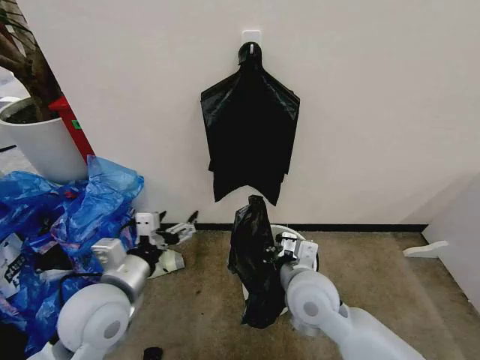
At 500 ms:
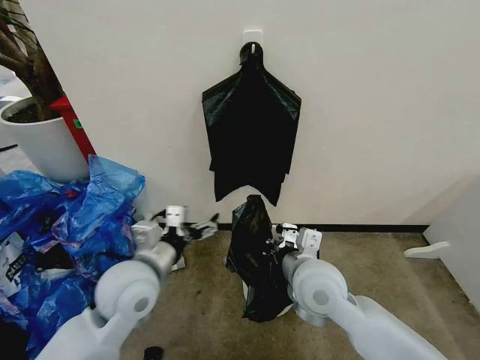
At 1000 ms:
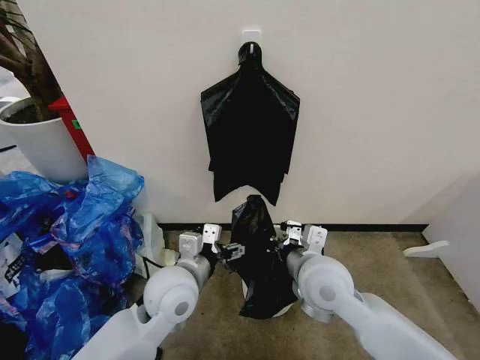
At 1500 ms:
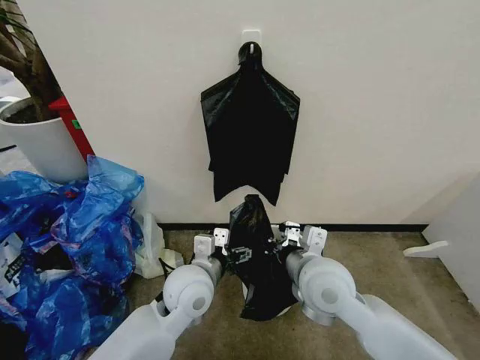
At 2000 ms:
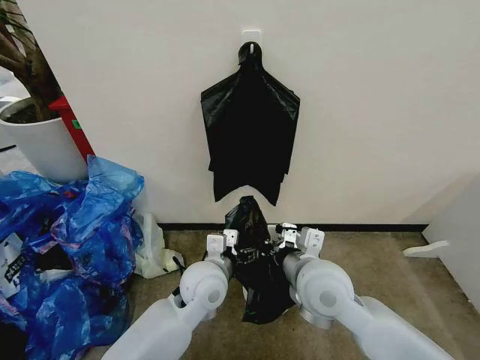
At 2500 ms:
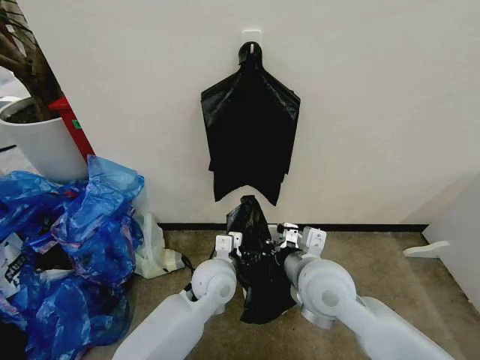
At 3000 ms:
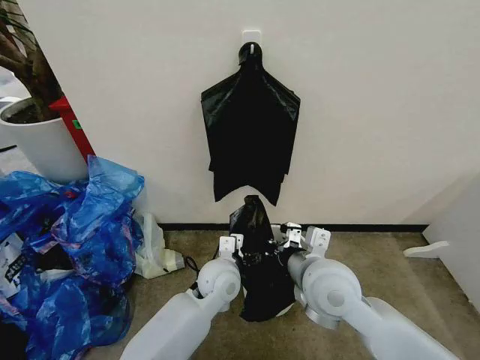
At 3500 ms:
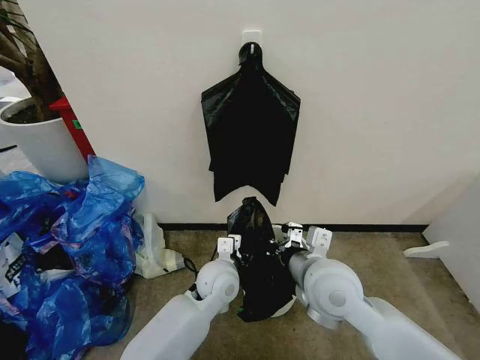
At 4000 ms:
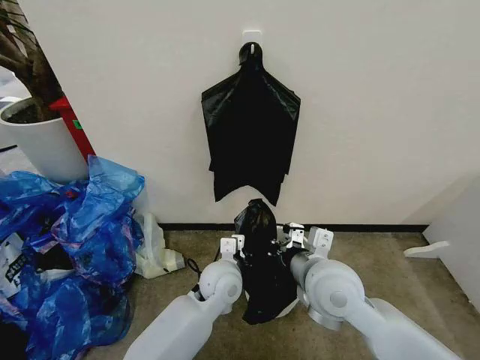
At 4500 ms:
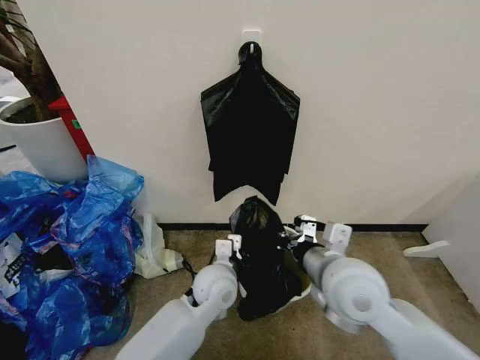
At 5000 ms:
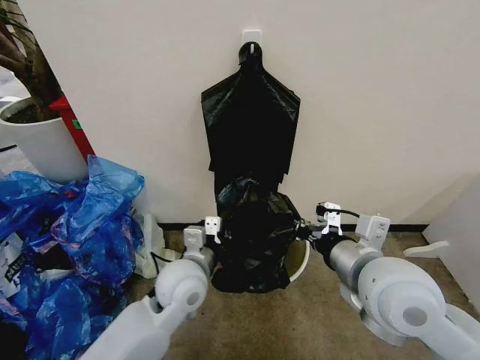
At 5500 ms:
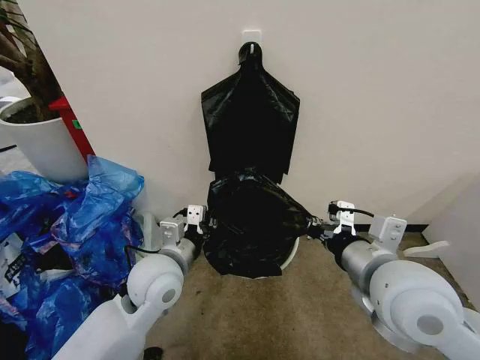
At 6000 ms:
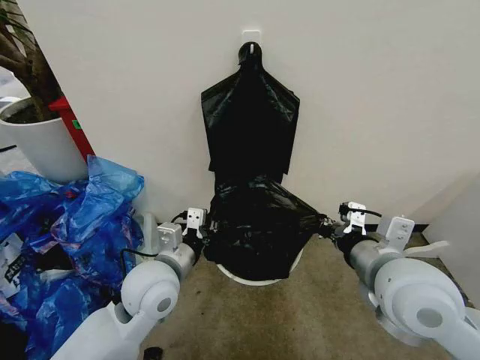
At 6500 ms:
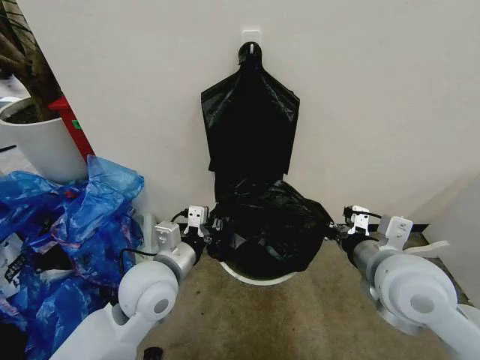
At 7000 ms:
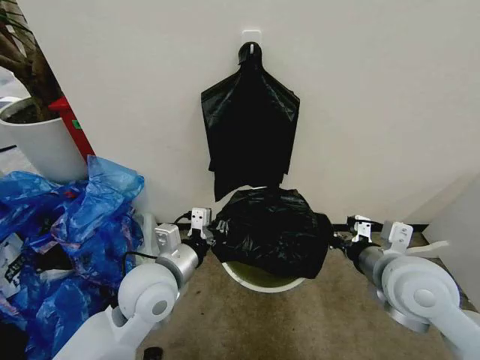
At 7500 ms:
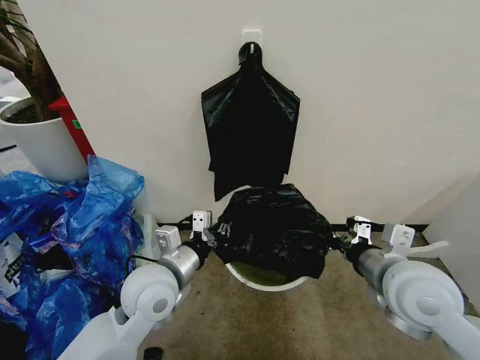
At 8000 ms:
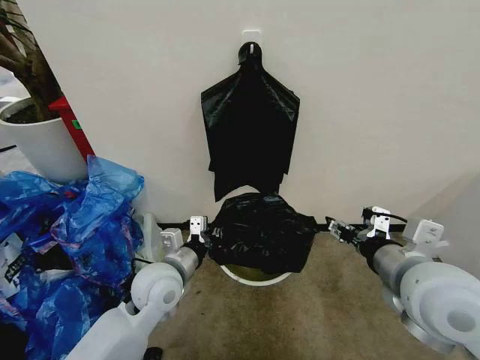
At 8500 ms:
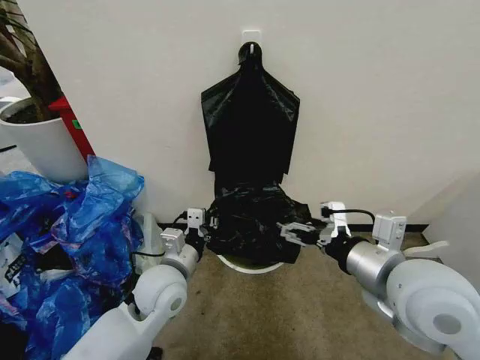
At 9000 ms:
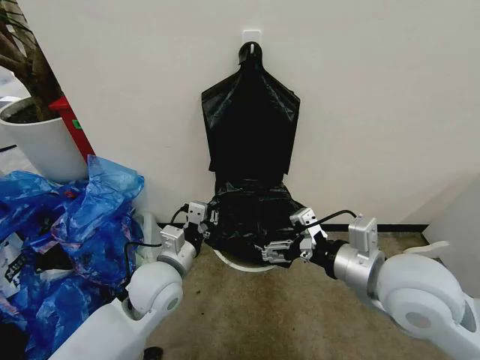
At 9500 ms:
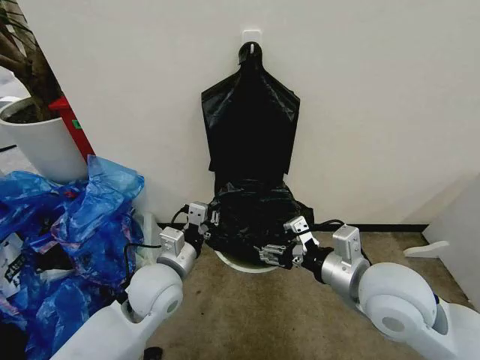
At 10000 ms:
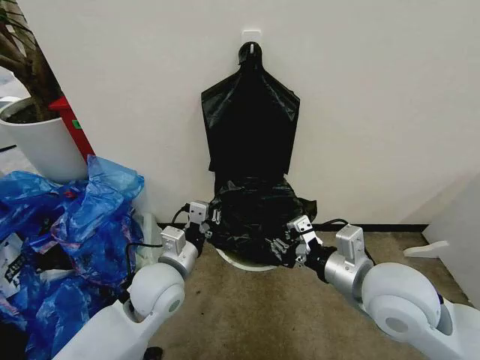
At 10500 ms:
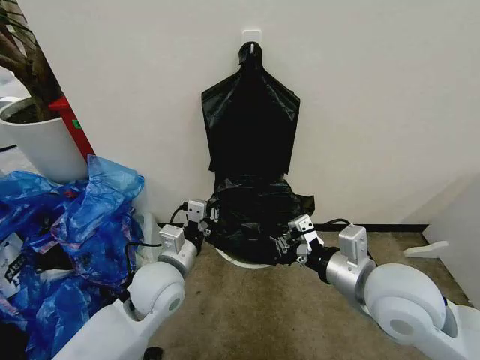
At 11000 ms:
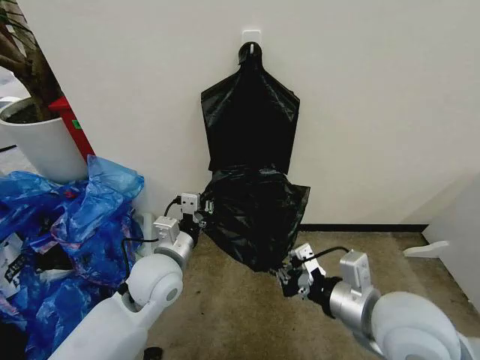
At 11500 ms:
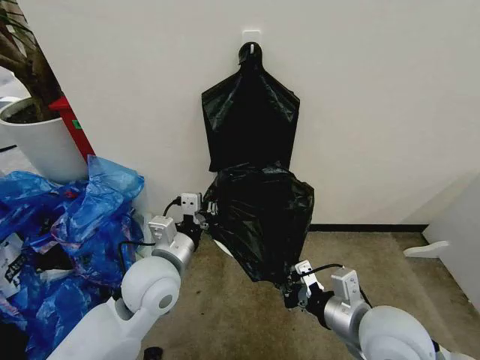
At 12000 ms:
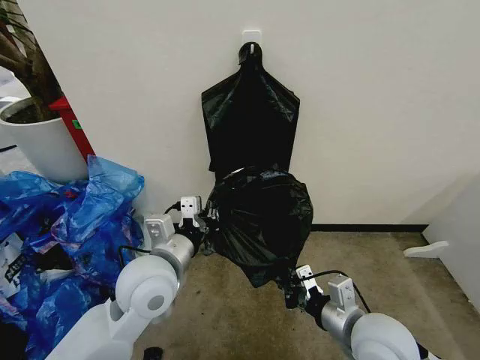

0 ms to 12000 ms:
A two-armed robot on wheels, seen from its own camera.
Task of the whole recording: Place the garbage bag over the trash bin.
0 ms to 2000 ms: The left gripper is displaced to the right, forward and downward by approximately 20 cm.
2000 ms to 4000 ms: The left gripper heads downward, covering about 5 cm, and closes up.
4000 ms to 6000 ms: The right gripper heads upward and to the right, covering some 10 cm, while the left gripper travels to the left, upward and backward by approximately 15 cm.
6000 ms to 8000 ms: The left gripper changes place by some 5 cm, while the right gripper opens its fingers.
8000 ms to 10000 ms: The right gripper changes place by approximately 5 cm, and closes its fingers.
10000 ms to 12000 ms: The right gripper heads downward, covering approximately 10 cm. Meanwhile the left gripper heads upward, covering about 5 cm.

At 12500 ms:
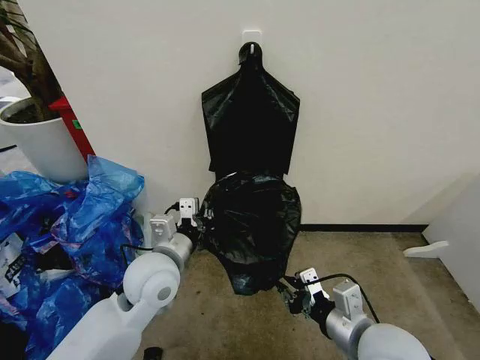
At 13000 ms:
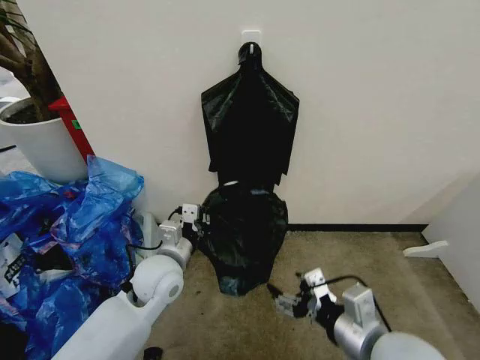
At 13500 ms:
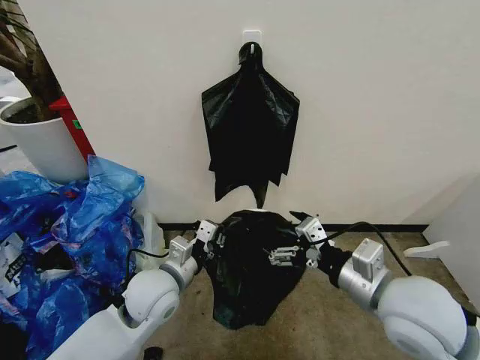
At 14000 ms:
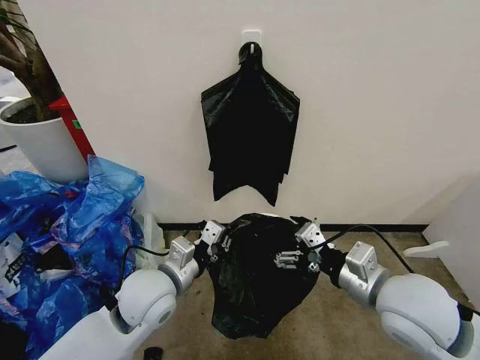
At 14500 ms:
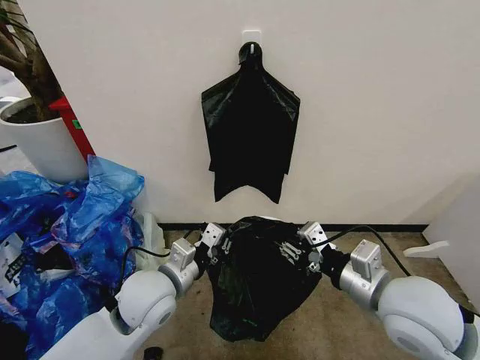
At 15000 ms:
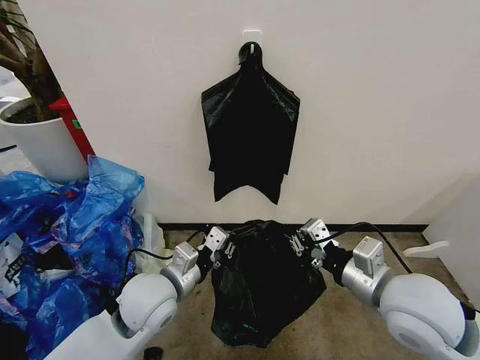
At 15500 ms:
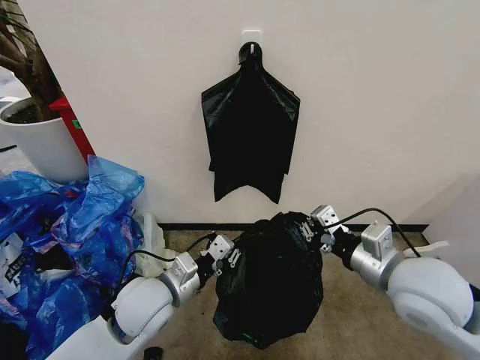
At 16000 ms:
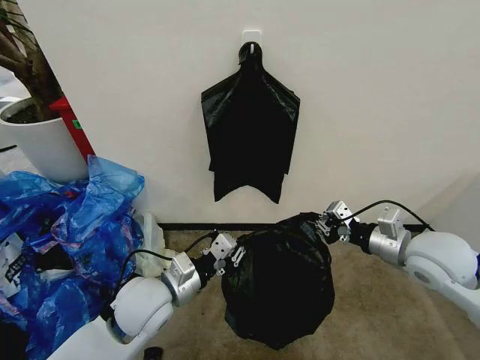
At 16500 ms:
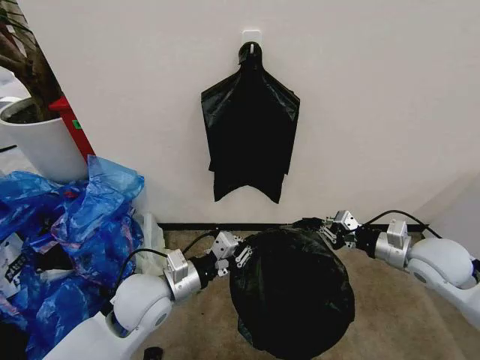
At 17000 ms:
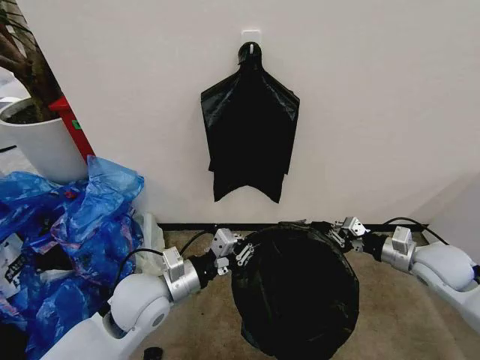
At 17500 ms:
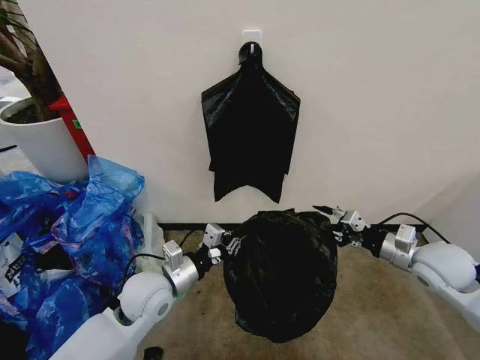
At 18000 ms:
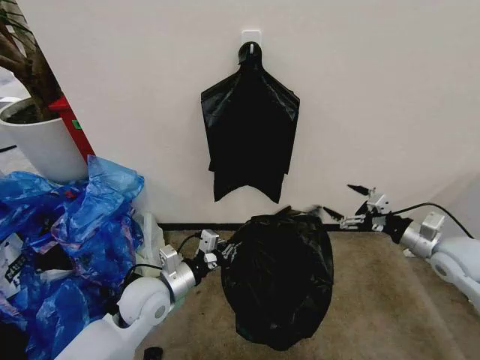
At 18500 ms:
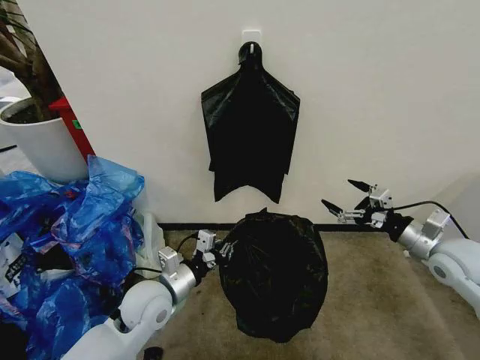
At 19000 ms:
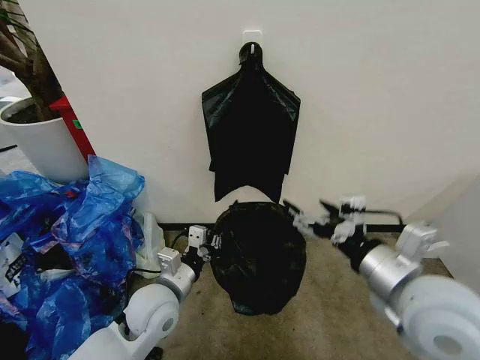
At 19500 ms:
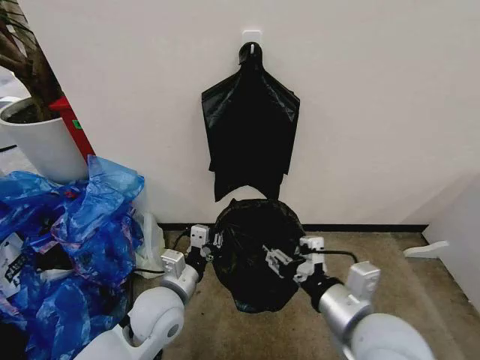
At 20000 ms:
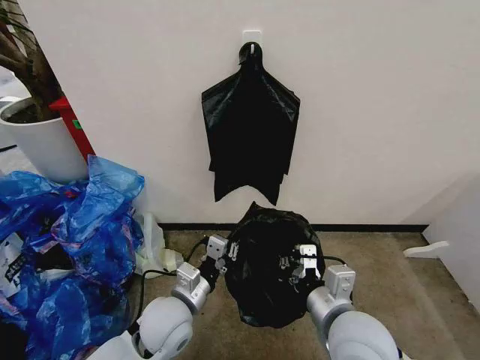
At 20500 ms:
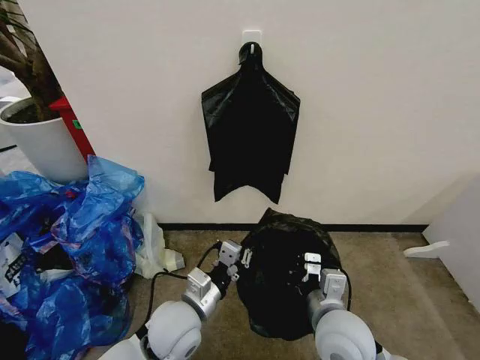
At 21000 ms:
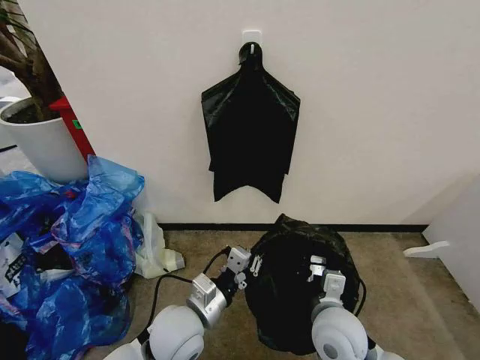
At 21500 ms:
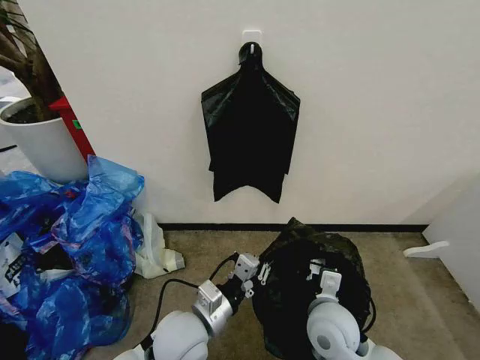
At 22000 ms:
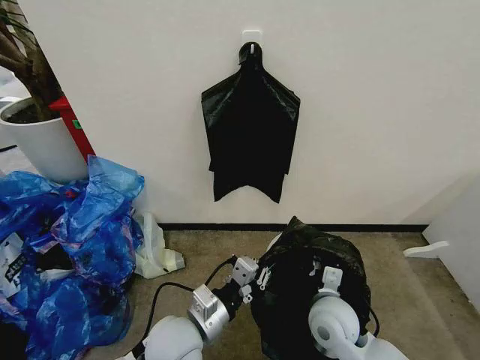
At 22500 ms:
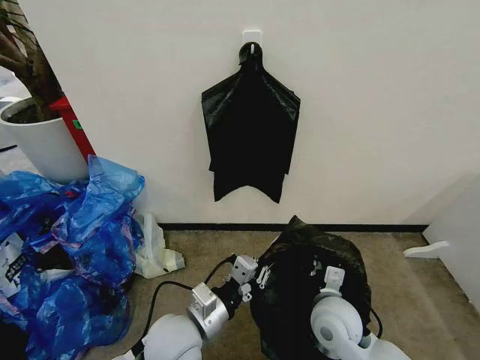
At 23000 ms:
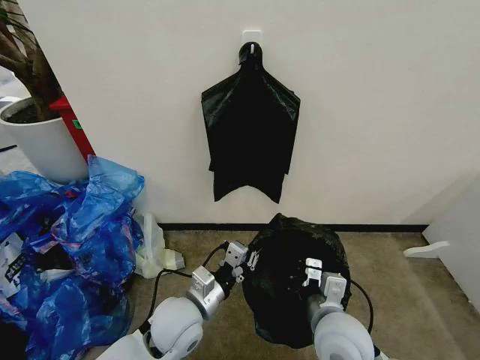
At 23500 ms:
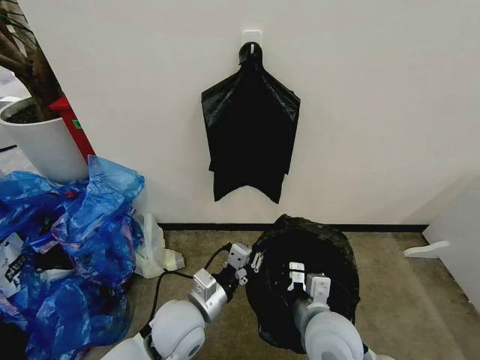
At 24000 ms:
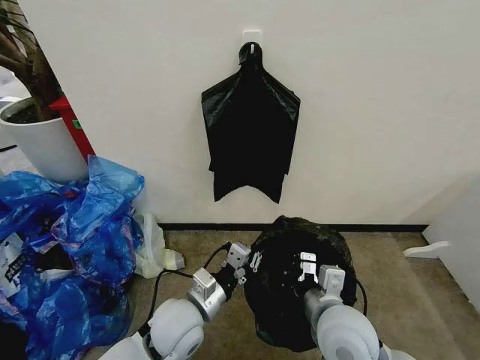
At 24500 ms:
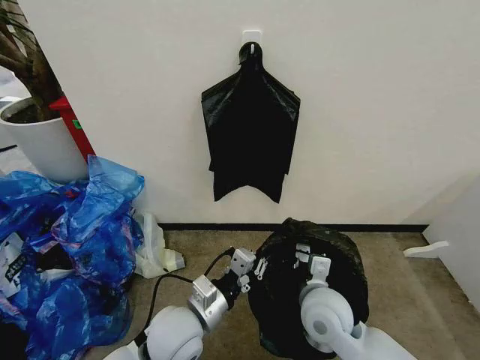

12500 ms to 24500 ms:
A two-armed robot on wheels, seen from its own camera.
Task of the whole recording: Place the garbage bag over the trash bin.
12500 ms to 14500 ms: The right gripper heads upward, covering about 5 cm, and opens and closes again.
14500 ms to 16500 ms: The right gripper moves to the right, forward and downward, about 20 cm, and closes up.
16500 ms to 18500 ms: The right gripper opens up; the left gripper heads downward, covering about 5 cm.
18500 ms to 20500 ms: The left gripper heads to the right, covering about 5 cm. The right gripper goes some 30 cm to the left and backward, and closes.
20500 ms to 22500 ms: The right gripper shifts approximately 5 cm downward.

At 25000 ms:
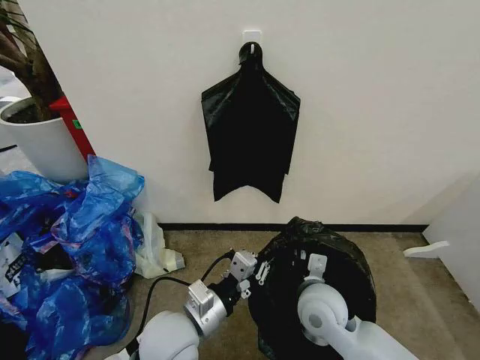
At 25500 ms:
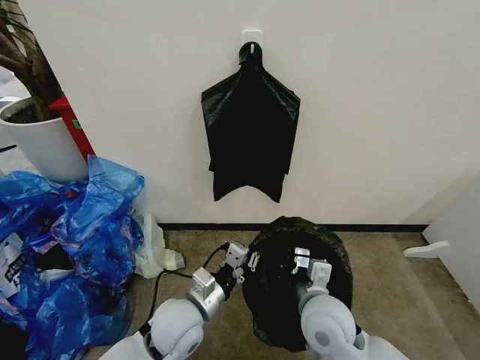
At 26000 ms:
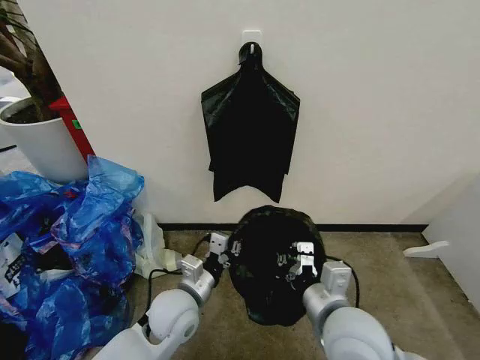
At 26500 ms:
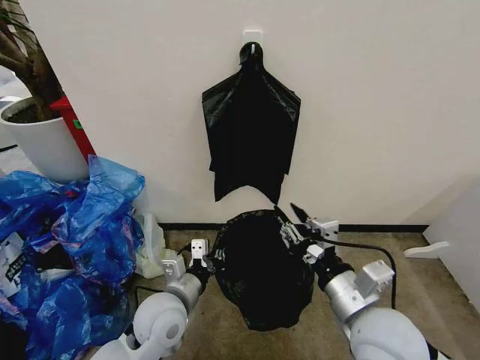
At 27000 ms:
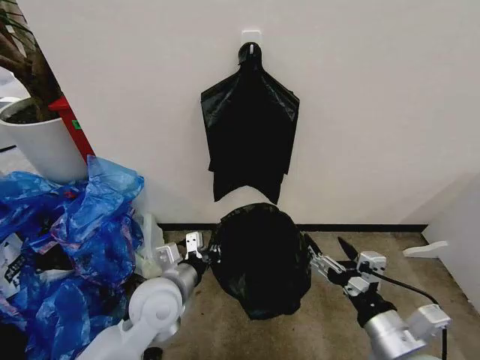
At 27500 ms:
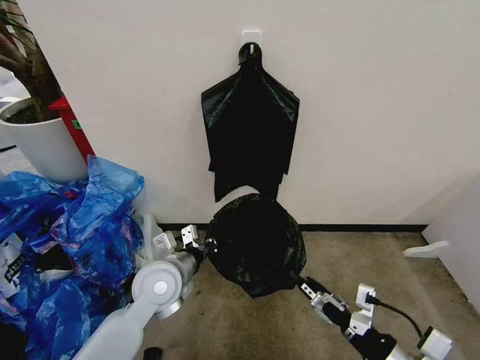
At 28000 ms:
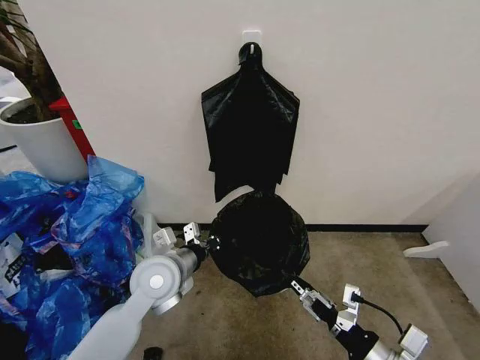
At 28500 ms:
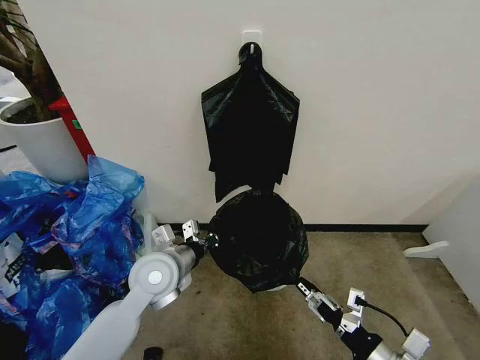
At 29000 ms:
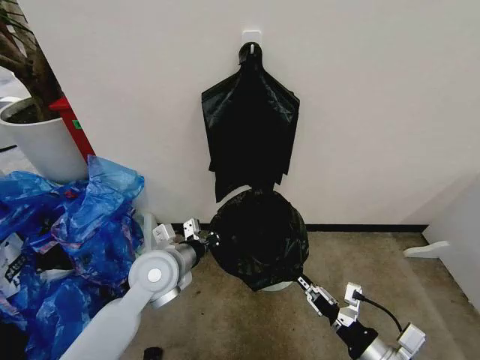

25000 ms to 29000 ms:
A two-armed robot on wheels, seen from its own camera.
Task of the whole recording: Place the garbage bag over the trash bin.
25000 ms to 27000 ms: The right gripper shifts some 20 cm backward, to the right and upward, and opens up, while the left gripper heads forward, covering roughly 5 cm.
27000 ms to 29000 ms: The right gripper shifts about 5 cm downward, and closes up. Meanwhile the left gripper moves roughly 5 cm.
